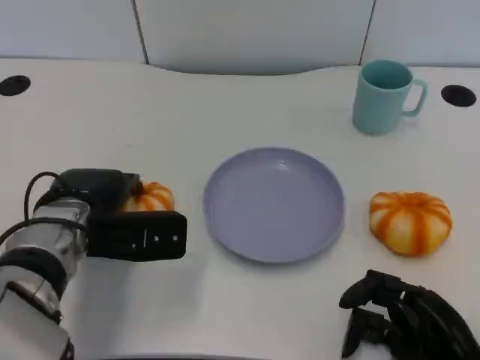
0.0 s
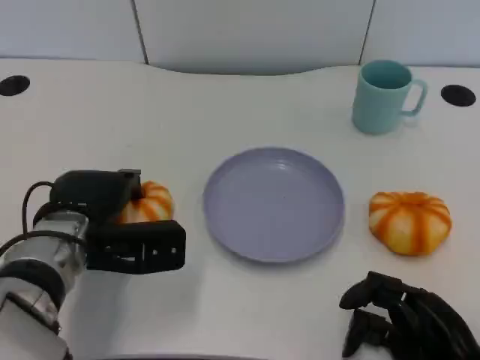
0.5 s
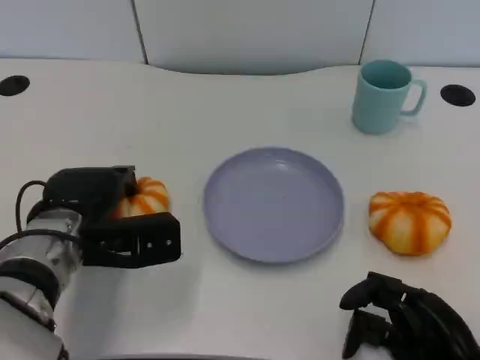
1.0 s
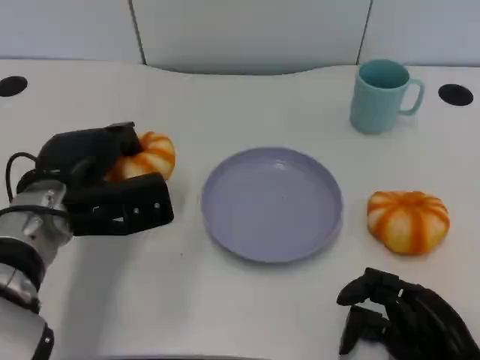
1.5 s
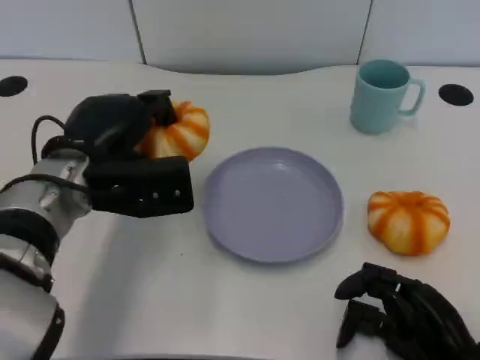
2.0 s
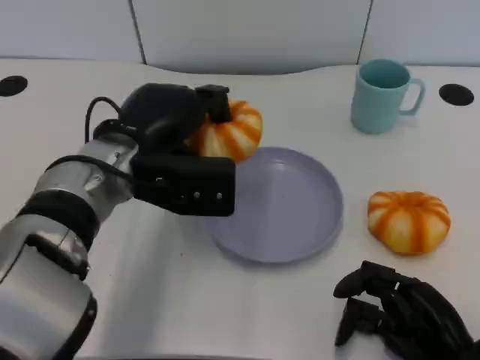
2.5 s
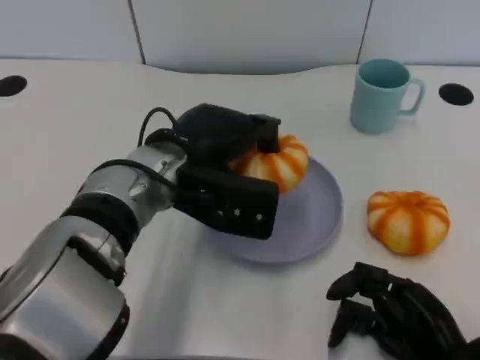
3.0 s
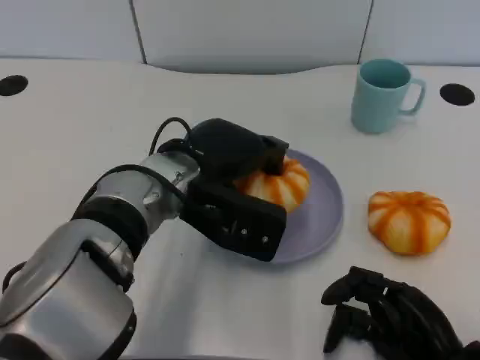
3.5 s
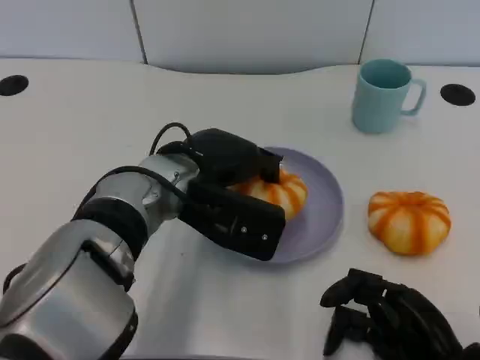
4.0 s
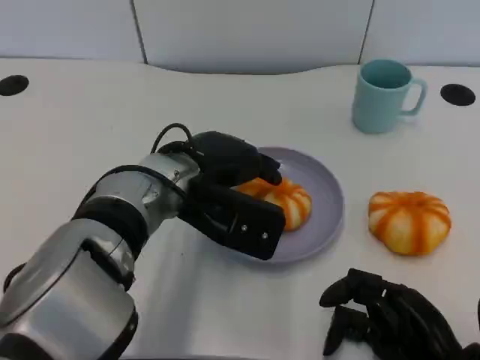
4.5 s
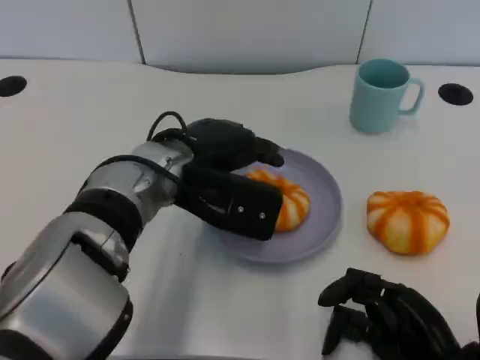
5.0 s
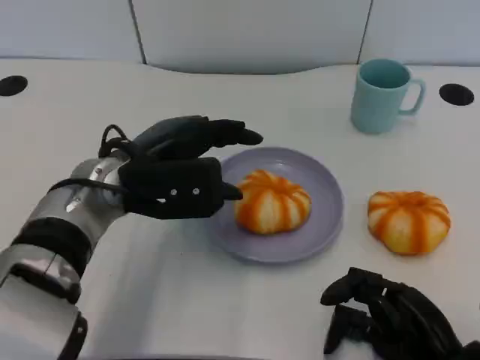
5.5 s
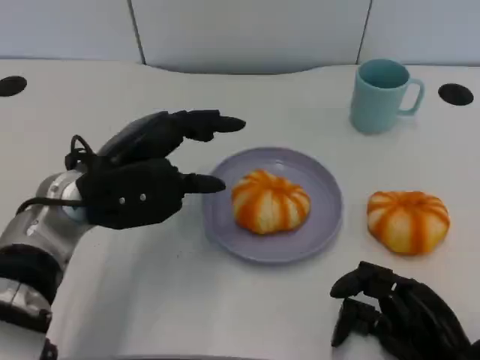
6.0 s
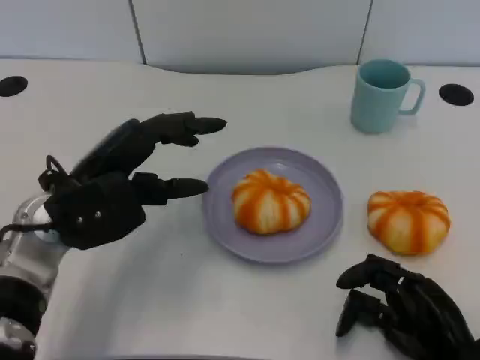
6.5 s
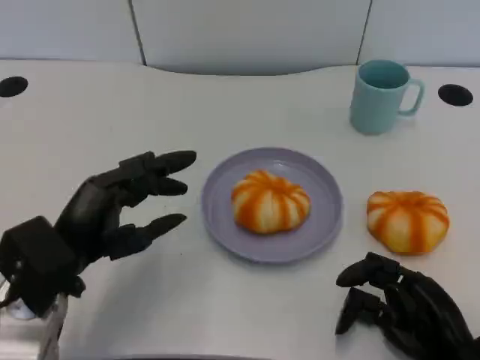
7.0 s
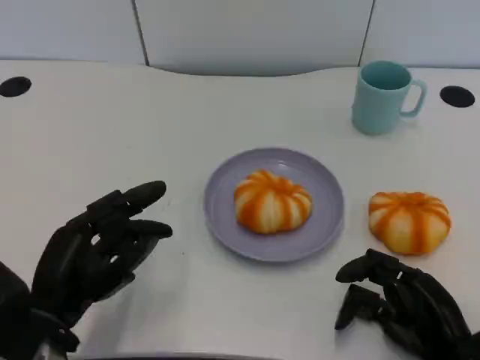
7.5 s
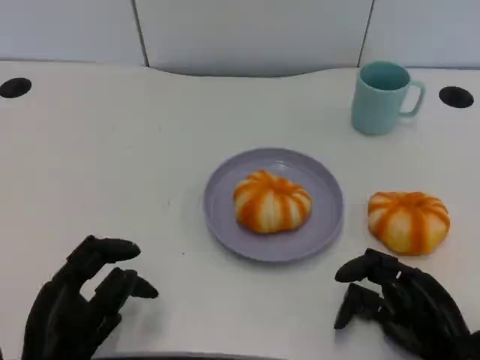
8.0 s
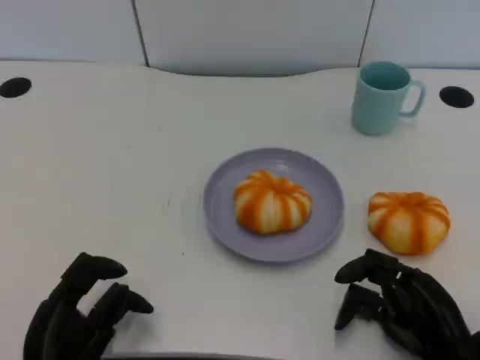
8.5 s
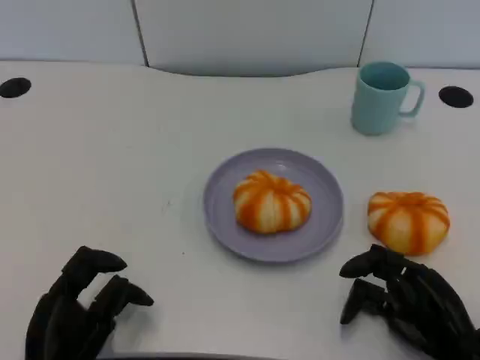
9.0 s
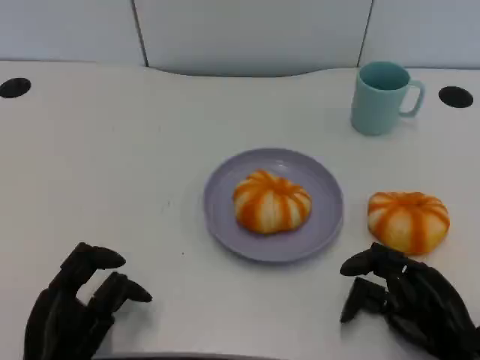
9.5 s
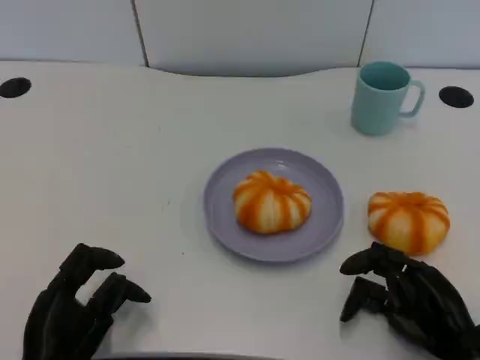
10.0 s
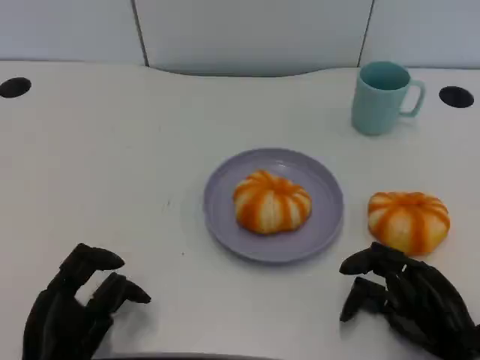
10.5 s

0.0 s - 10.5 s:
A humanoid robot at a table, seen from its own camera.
Task of the whole recording: Grasp the bread from the table and place it into the plate.
0.0 s - 2.0 s: The left hand shifts by approximately 5 cm.
2.0 s - 4.0 s: The left hand is displaced to the right by some 10 cm.
4.0 s - 6.5 s: The left hand shifts approximately 10 cm to the left.
6.5 s - 8.5 s: The left hand travels backward and downward by about 20 cm.
8.5 s - 10.5 s: Neither hand changes place.

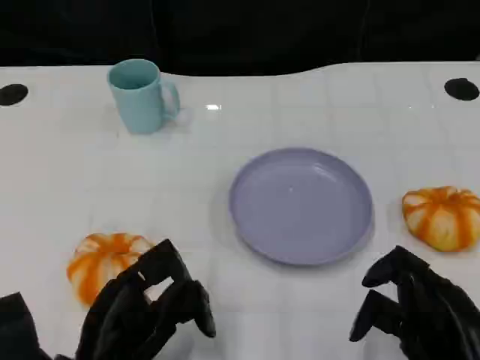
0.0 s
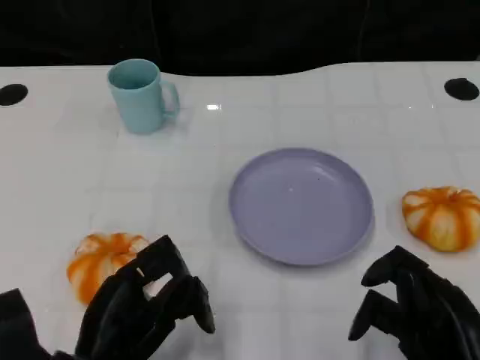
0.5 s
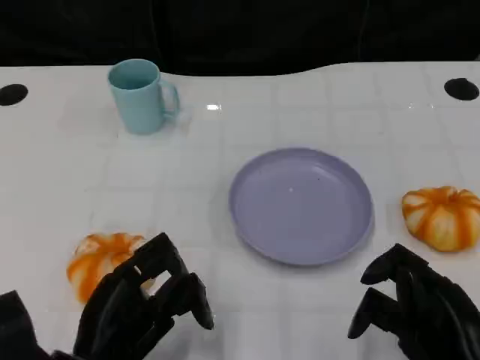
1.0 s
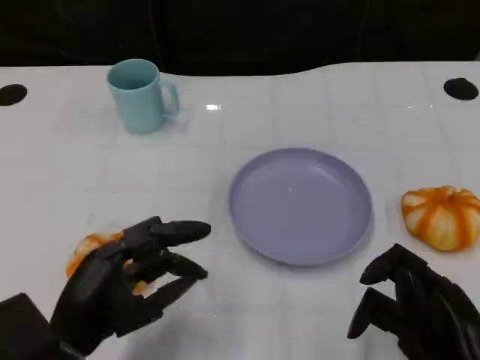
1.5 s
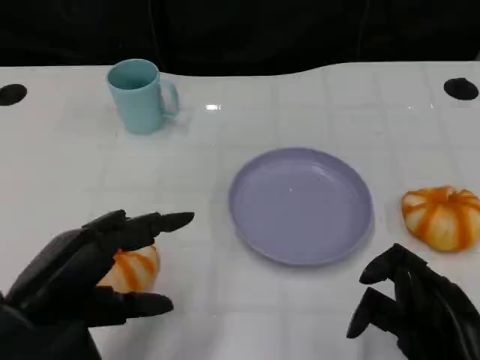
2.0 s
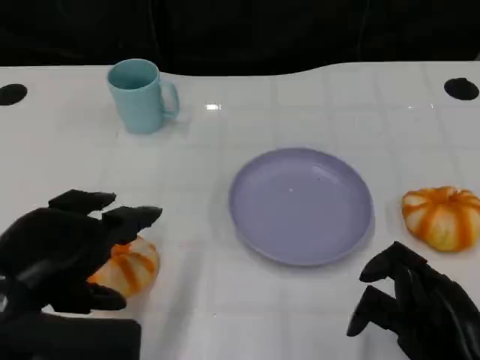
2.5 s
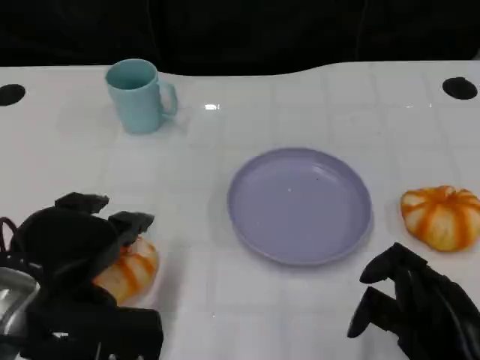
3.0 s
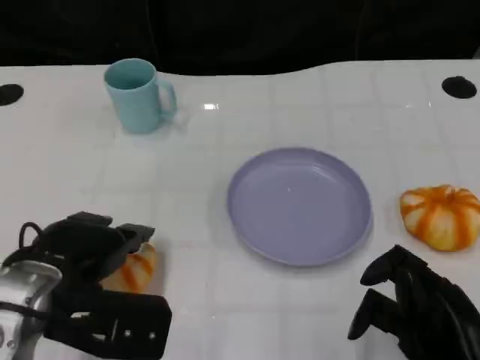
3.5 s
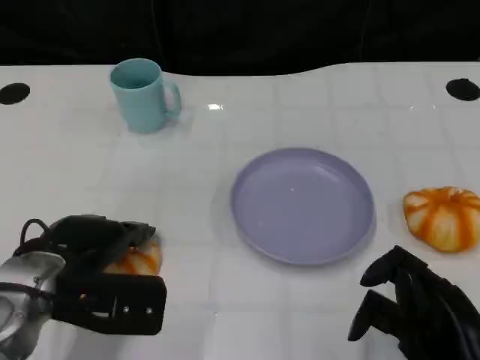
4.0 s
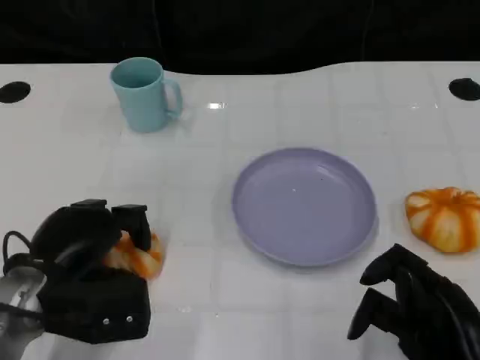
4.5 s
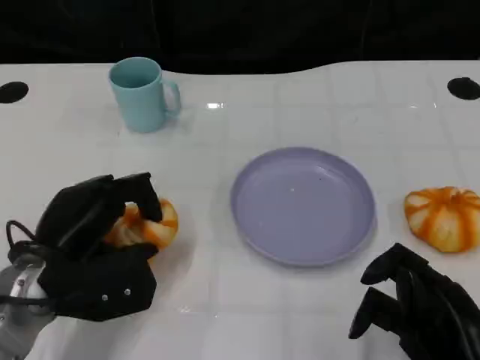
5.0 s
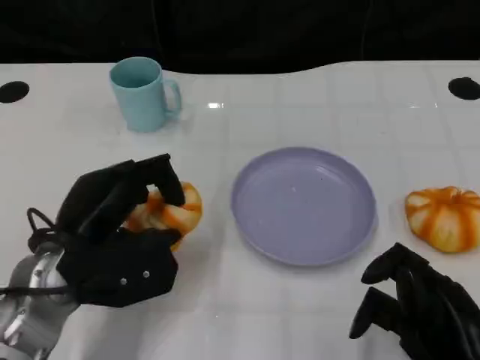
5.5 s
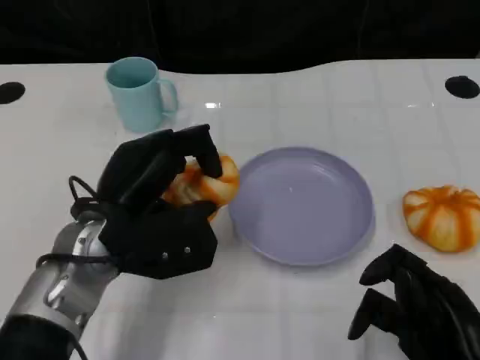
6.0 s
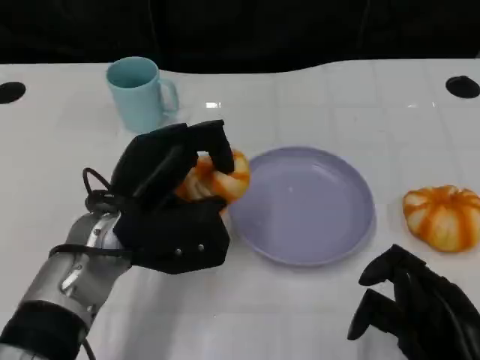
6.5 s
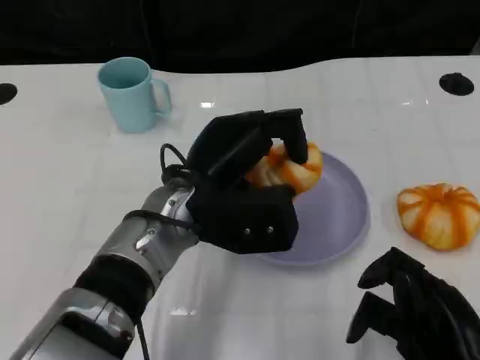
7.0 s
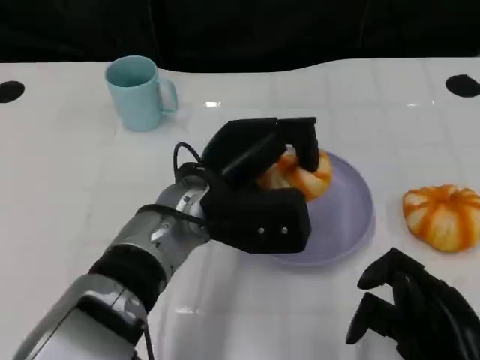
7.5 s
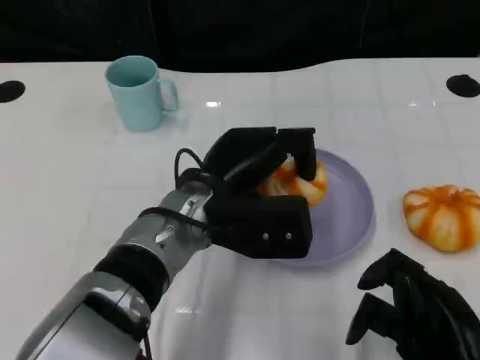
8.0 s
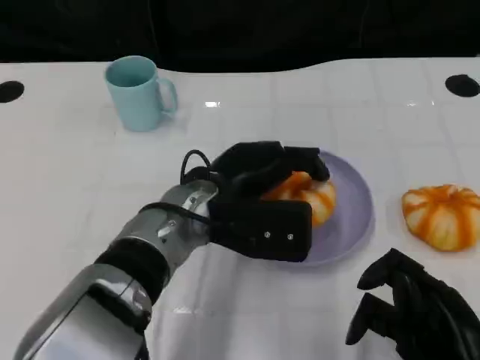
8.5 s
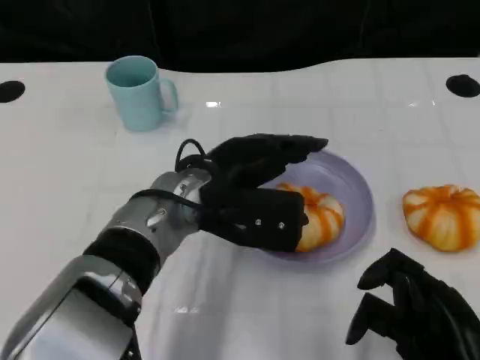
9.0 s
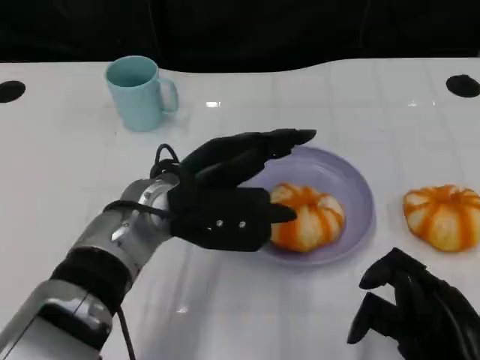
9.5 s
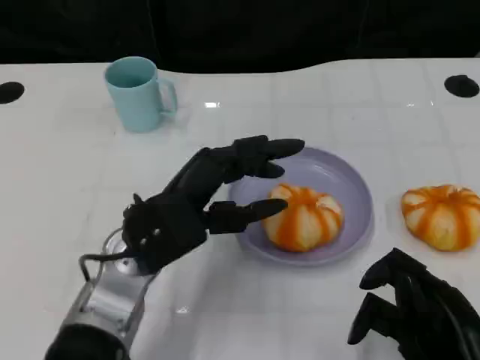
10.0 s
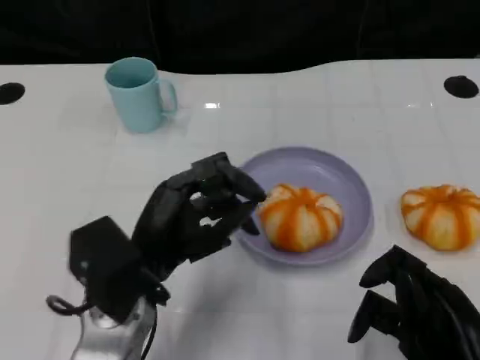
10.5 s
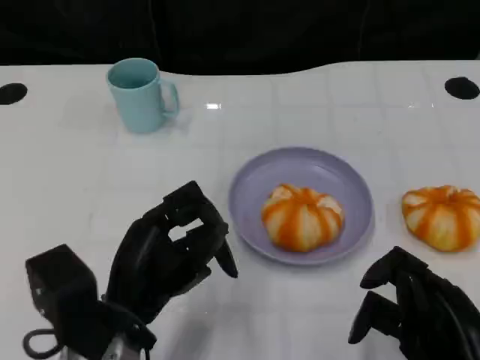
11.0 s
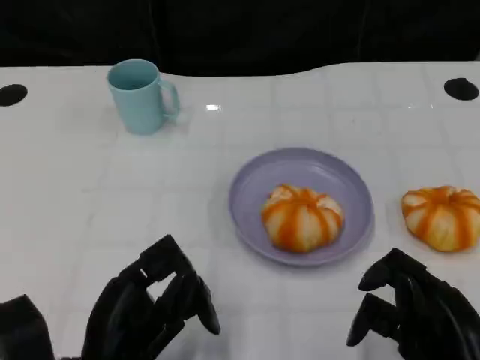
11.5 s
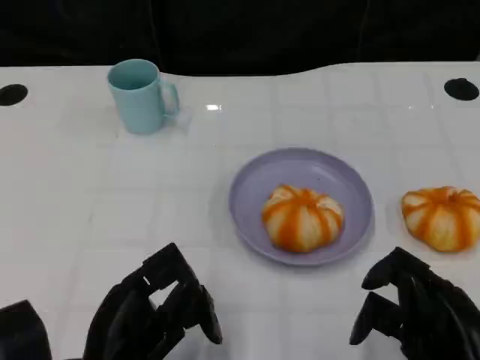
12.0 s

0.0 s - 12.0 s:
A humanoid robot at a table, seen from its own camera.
Task of the whole recording: Grasp the bread from the table and place it into the plate.
0.0 s - 2.0 s: The left hand shifts about 10 cm upward.
2.0 s - 4.0 s: The left hand moves forward, about 10 cm.
4.0 s - 6.0 s: The left hand heads to the right, covering about 5 cm.
6.0 s - 8.0 s: The left hand moves to the right, approximately 10 cm.
8.0 s - 10.0 s: The left hand goes some 5 cm to the left.
10.0 s - 12.0 s: The left hand goes about 15 cm backward and to the left.

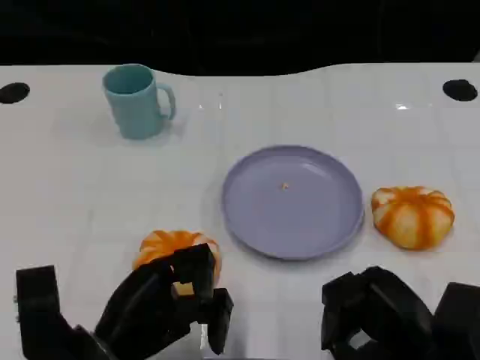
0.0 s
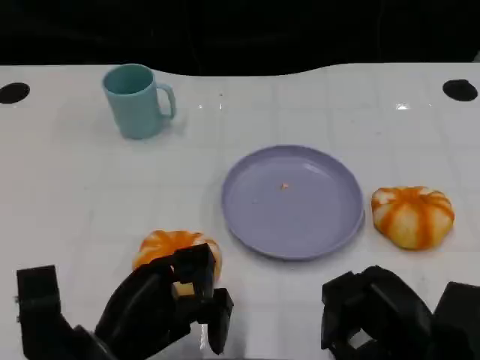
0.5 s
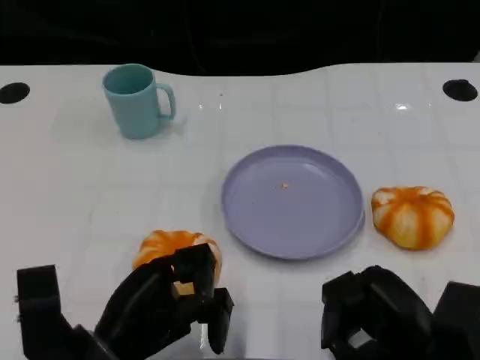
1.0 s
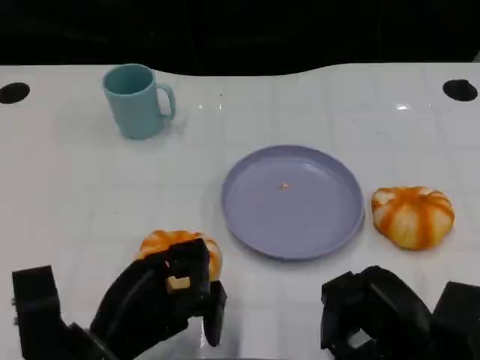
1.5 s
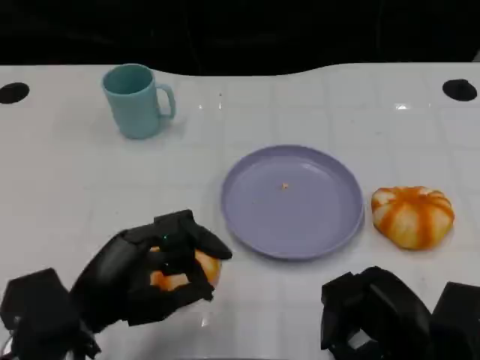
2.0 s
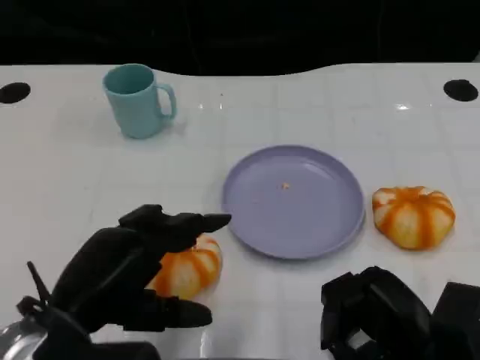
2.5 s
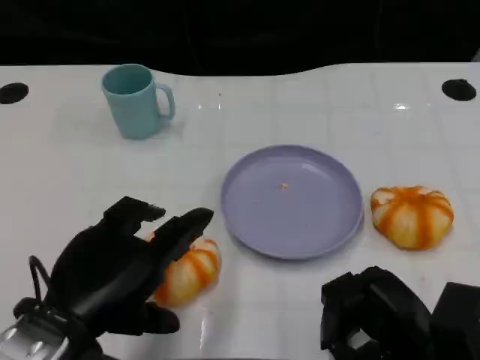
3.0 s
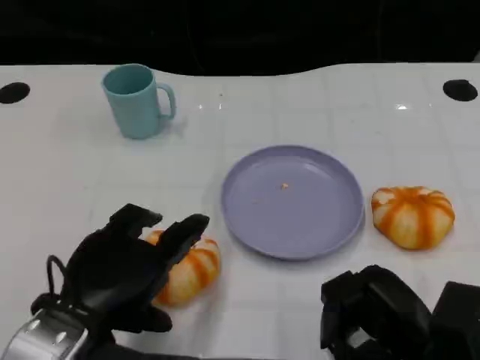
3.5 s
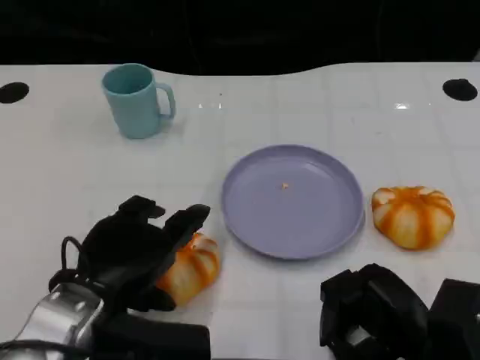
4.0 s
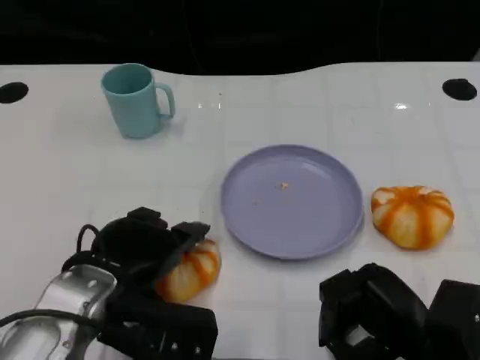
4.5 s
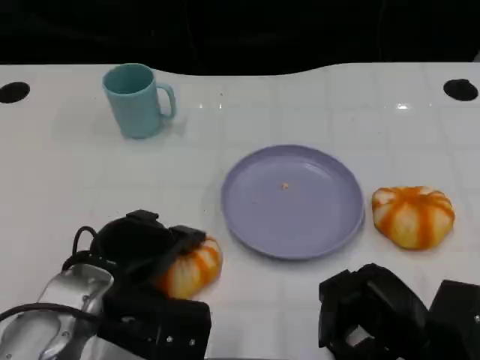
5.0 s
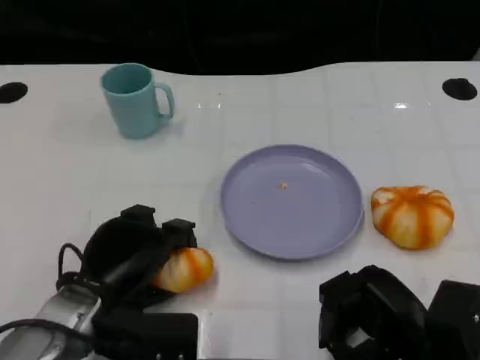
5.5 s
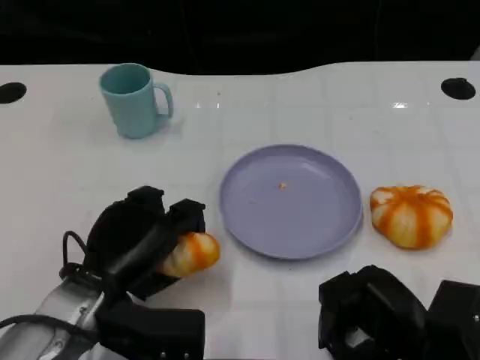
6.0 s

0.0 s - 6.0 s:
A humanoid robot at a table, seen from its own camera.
Task of the whole recording: Grasp the bread from the table and place it into the plate.
0.0 s - 2.0 s: The left hand moves about 5 cm.
4.0 s - 6.0 s: The hands make only small movements.
